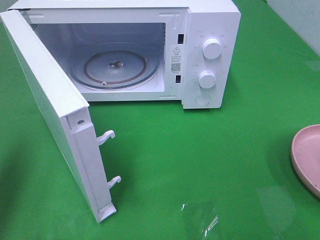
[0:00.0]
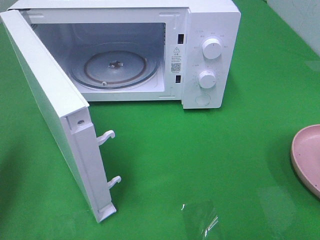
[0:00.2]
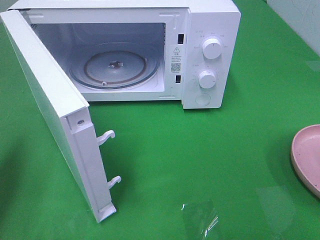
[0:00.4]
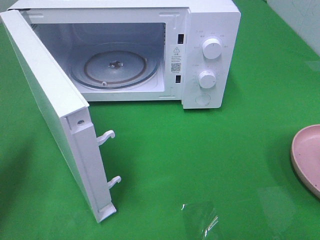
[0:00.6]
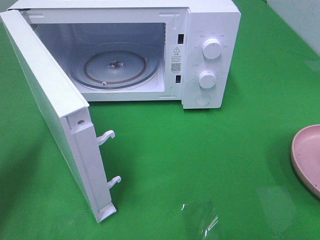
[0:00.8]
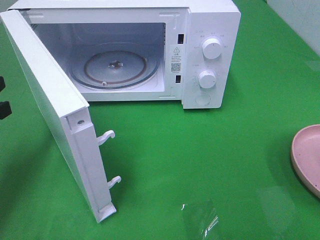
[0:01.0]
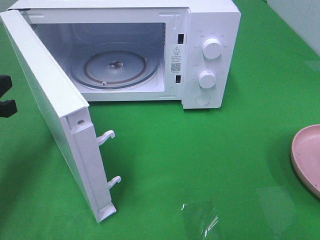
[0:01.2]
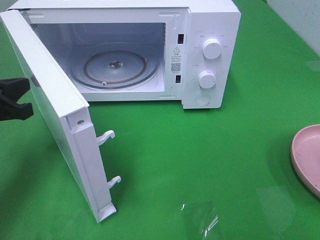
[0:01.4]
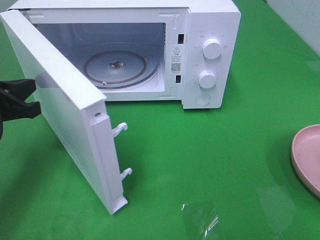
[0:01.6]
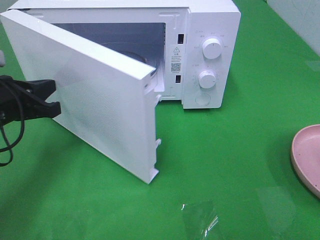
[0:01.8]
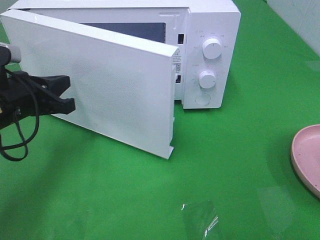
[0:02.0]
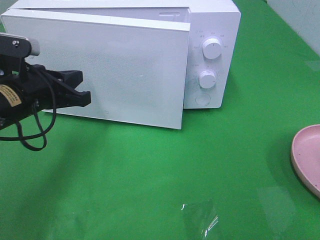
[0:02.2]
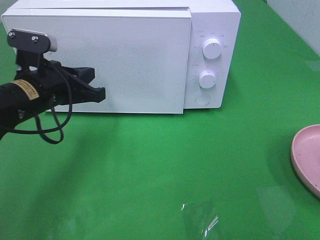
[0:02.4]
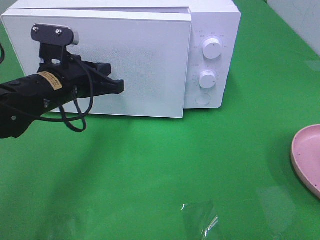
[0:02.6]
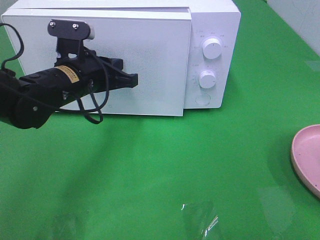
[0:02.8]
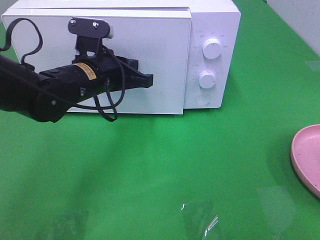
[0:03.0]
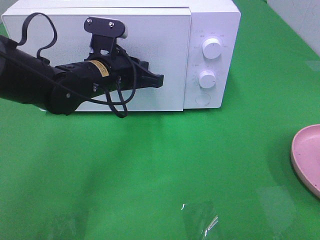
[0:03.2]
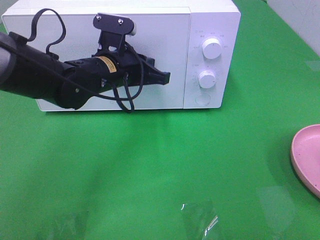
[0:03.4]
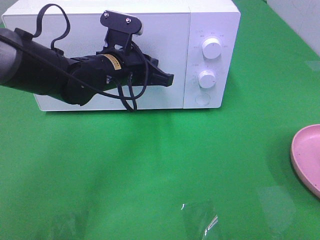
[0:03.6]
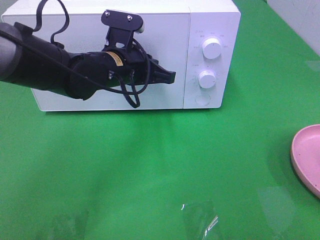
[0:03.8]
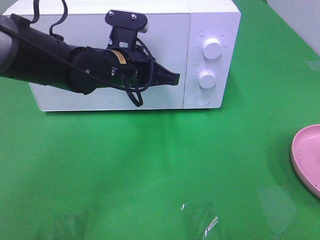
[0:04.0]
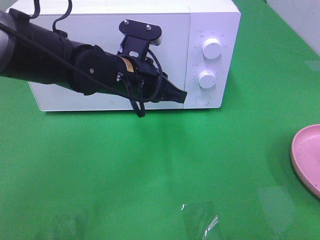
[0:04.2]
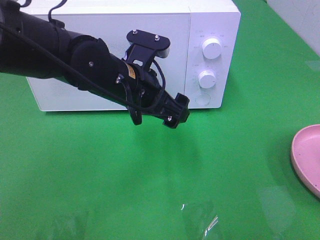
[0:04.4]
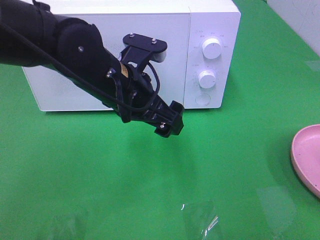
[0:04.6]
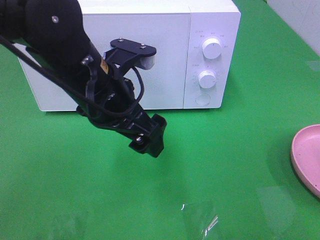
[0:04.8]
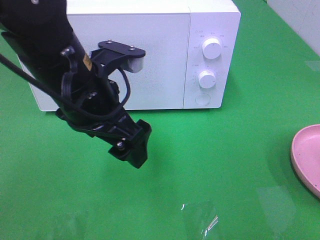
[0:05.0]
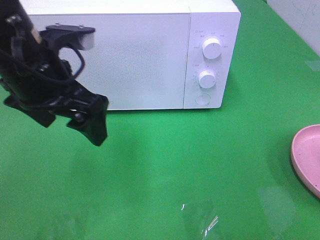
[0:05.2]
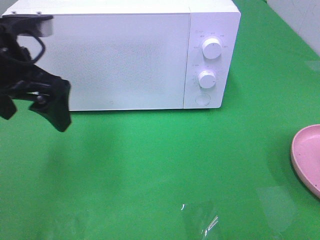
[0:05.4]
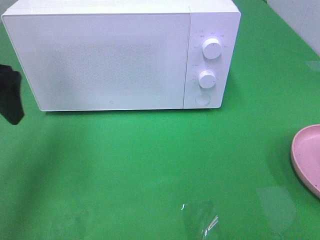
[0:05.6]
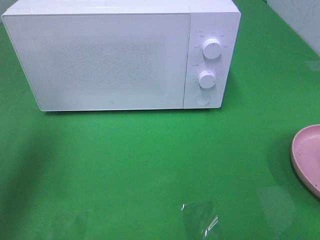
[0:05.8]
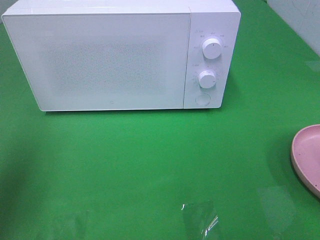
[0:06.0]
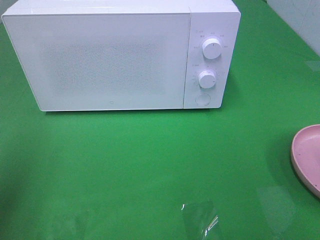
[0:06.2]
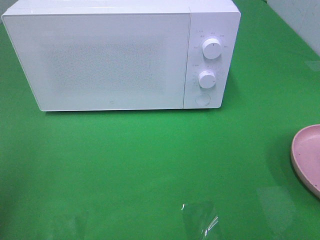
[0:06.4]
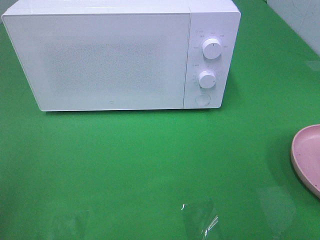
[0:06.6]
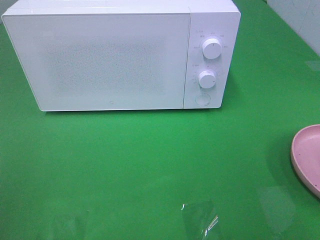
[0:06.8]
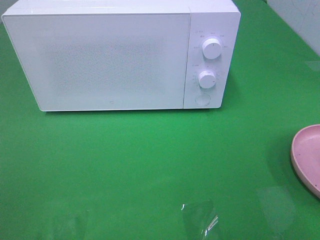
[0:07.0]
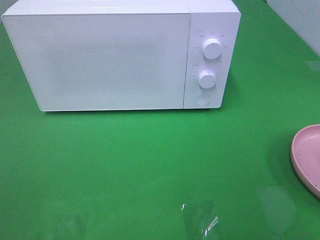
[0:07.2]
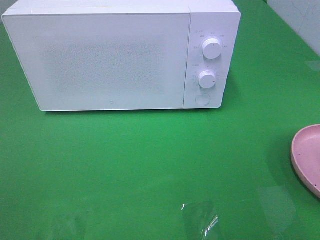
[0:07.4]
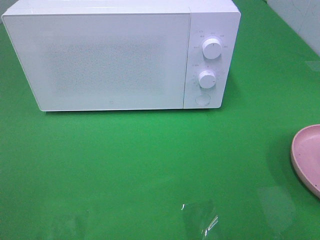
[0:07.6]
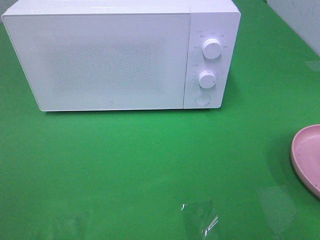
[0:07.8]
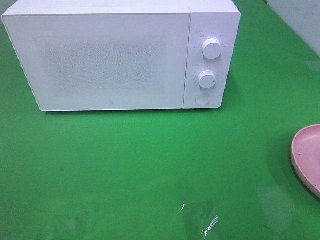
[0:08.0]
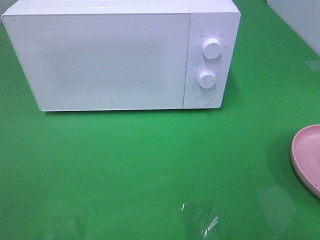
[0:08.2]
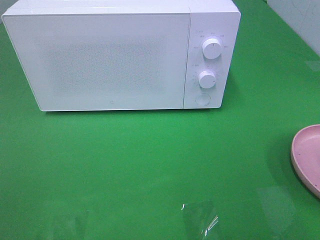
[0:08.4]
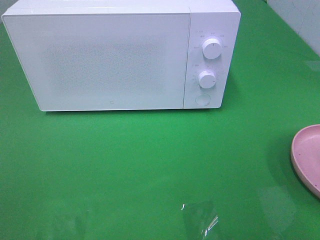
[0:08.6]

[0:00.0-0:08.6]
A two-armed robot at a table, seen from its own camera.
Task of the whole recording: Heat the burger.
Step, 0:00.0 to 0:04.0: Left hand: close the microwave door.
0:00.0 to 0:01.4: The left gripper travels downward and forward by roughly 15 cm.
0:01.4 to 0:02.8: The left gripper shifts some 15 cm to the right and forward.
0:02.8 to 0:04.4: The left gripper goes approximately 10 cm to the right, and opens.
0:04.4 to 0:05.8: The left gripper travels to the left by approximately 25 cm.
0:05.8 to 0:07.2: The left gripper is displaced backward by roughly 25 cm.
0:07.2 to 0:08.6: Both grippers stay about where they are.

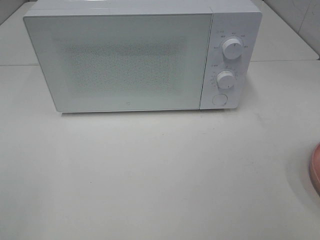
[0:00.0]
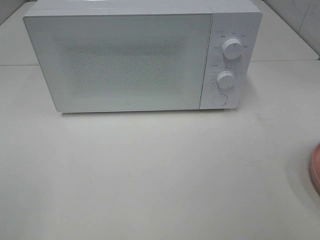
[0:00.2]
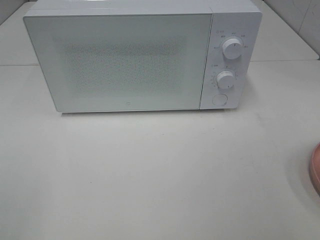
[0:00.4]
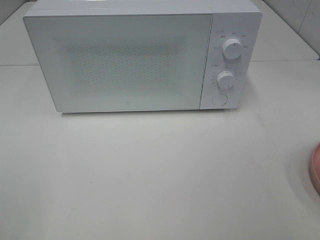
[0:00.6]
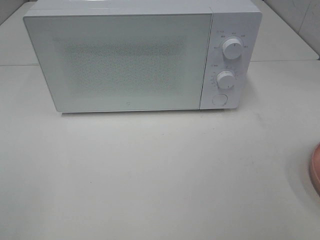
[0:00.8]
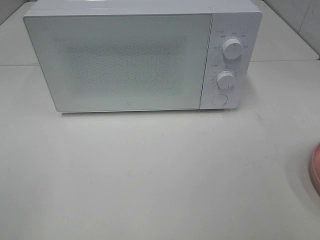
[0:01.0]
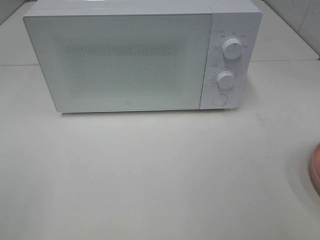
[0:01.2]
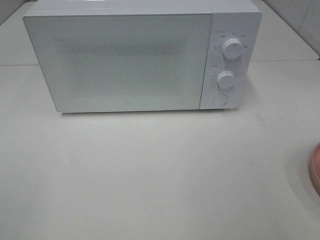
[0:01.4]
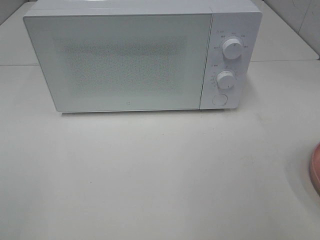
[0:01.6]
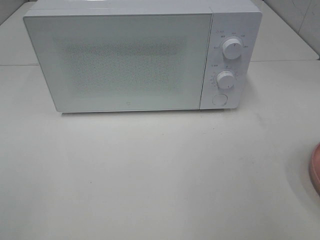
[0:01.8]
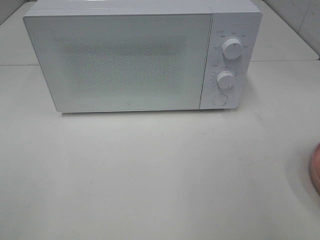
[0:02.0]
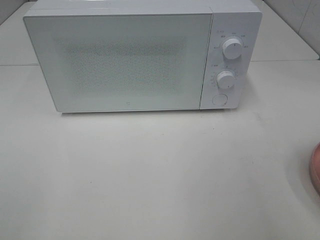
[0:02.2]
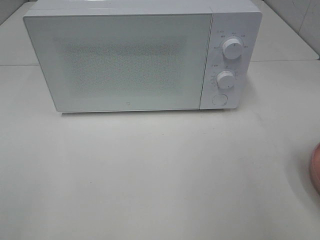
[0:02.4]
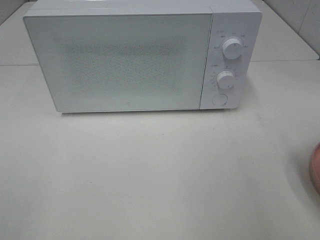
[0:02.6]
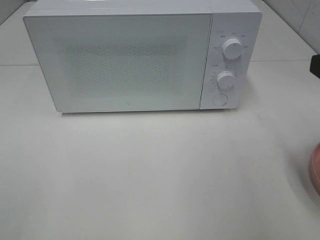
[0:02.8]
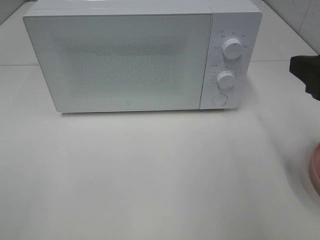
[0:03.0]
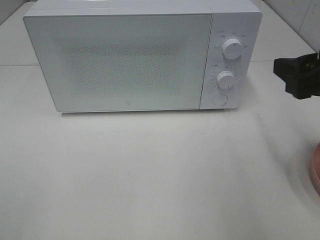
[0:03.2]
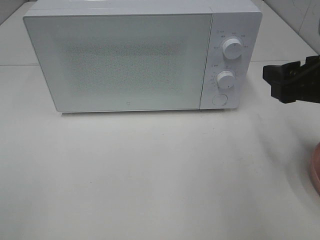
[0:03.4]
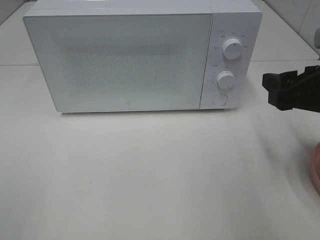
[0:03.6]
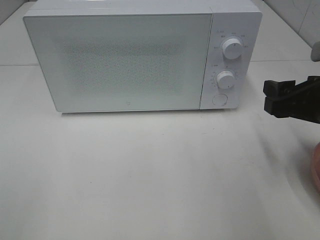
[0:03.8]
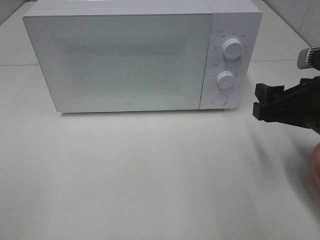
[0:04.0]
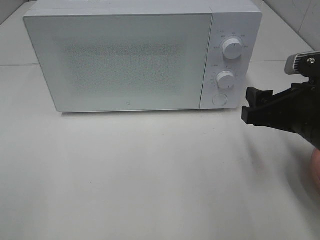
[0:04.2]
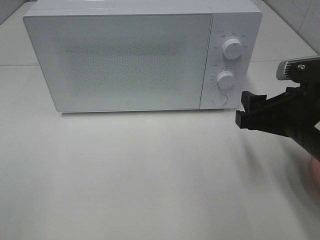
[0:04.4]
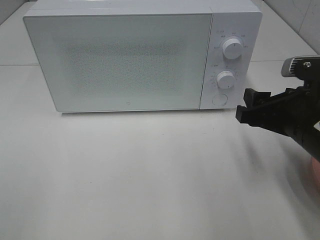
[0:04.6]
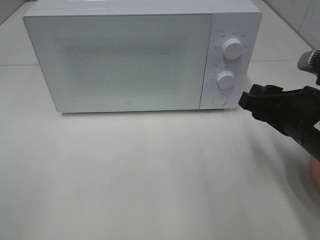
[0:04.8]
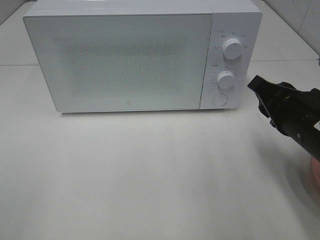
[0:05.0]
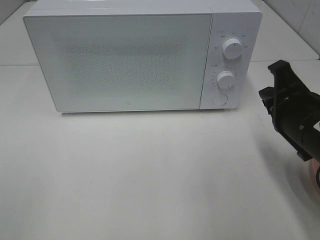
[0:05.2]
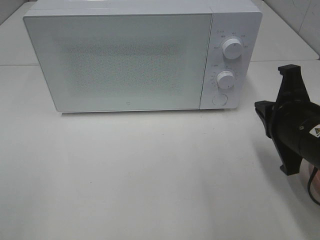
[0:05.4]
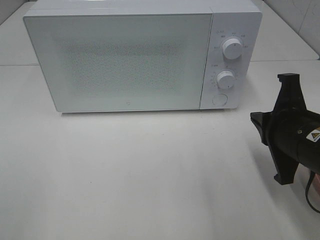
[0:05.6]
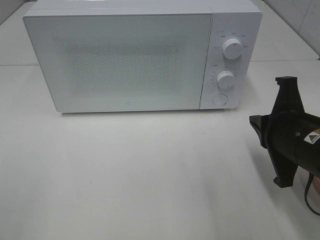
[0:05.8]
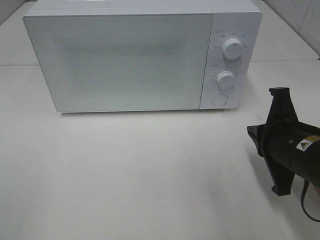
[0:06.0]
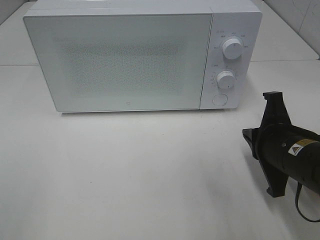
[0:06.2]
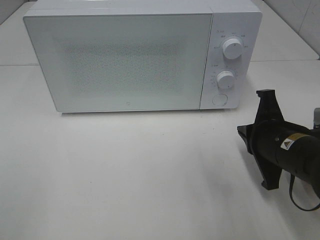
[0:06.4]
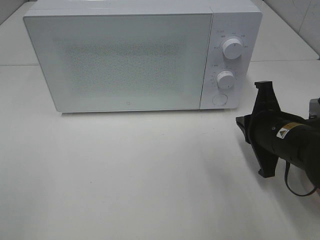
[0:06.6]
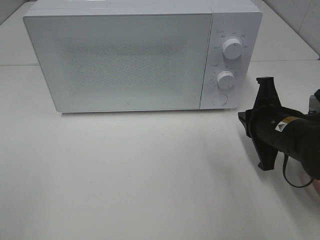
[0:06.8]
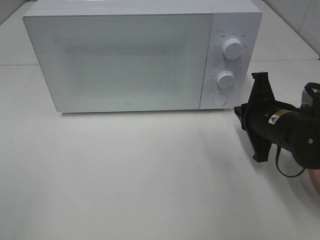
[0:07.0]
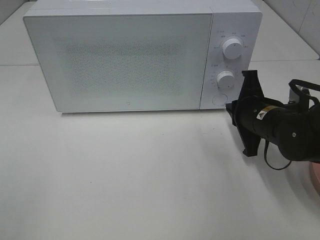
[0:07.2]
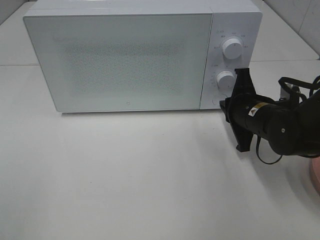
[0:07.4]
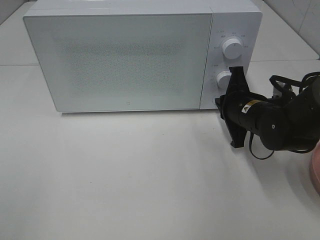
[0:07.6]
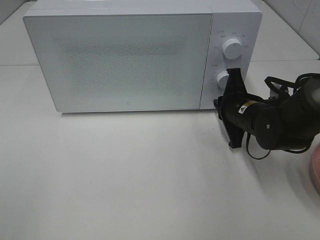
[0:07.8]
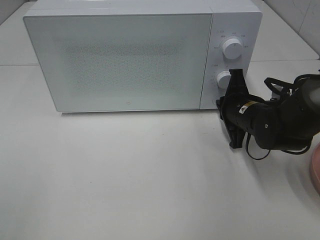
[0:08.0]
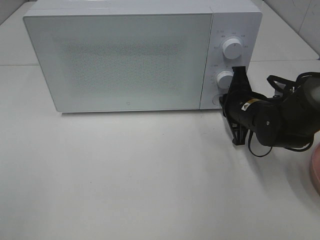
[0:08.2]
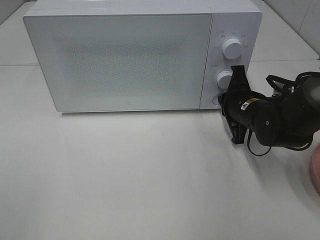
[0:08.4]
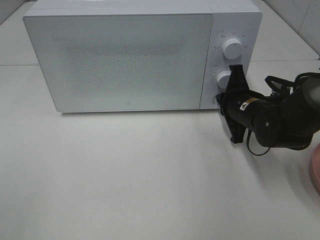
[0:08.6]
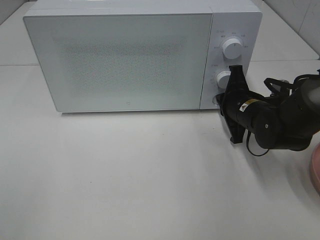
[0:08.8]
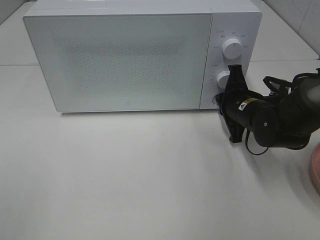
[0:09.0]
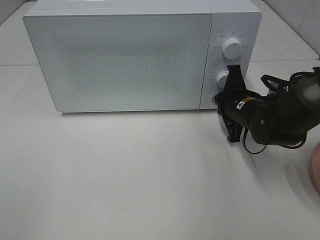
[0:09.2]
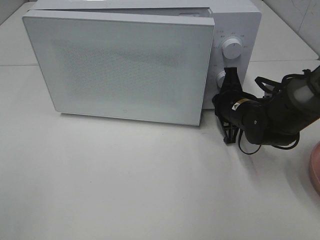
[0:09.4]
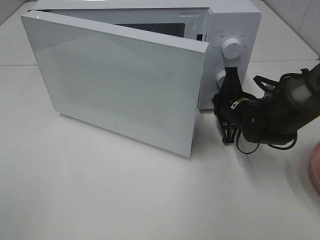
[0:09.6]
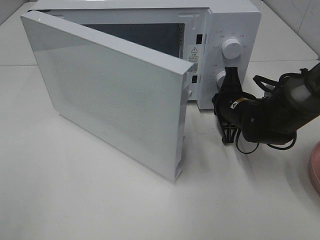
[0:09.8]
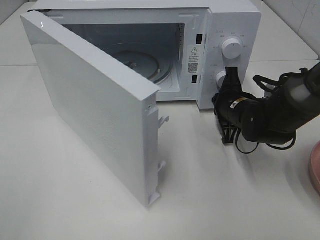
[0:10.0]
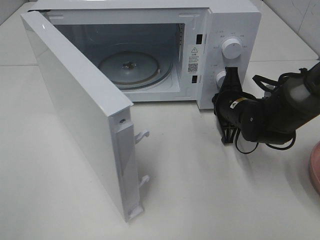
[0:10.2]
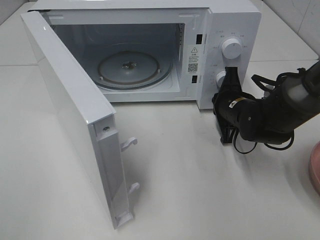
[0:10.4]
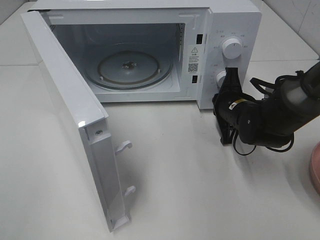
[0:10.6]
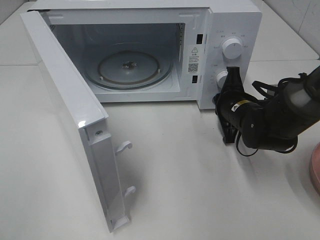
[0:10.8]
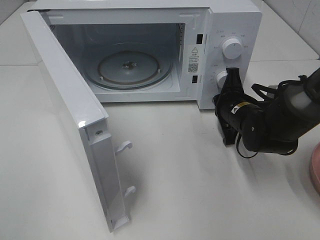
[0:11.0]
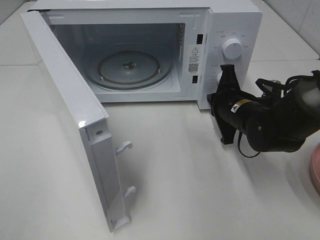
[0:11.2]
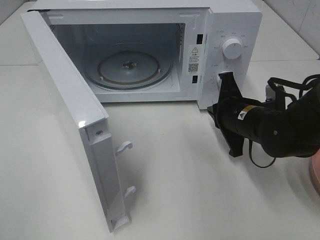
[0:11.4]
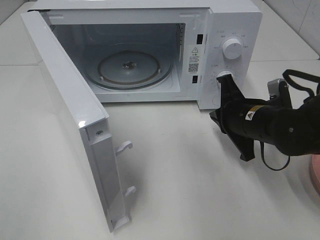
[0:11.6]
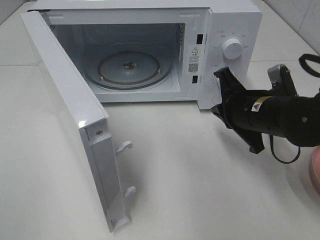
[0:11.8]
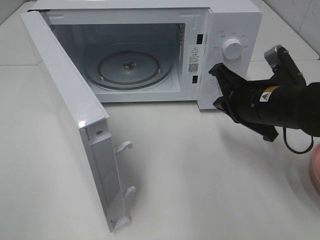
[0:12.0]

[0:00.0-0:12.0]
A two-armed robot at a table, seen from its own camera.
Task of the whole recording: Heat the burger.
Step, 0:00.0 to 0:11.2: Right hand: press the switch.
0:01.6 to 0:03.0: The right gripper shifts some 15 cm forward.
0:03.0 to 0:04.4: The right gripper is displaced downward by about 10 cm.
0:04.4 to 0:06.0: The right gripper closes its fingers.
0:06.0 to 0:07.6: The right gripper heads forward, covering about 15 cm.
0:07.6 to 0:09.0: The grippers move only a little.
0:10.4 to 0:12.0: The right gripper is displaced backward and upward by roughly 10 cm.

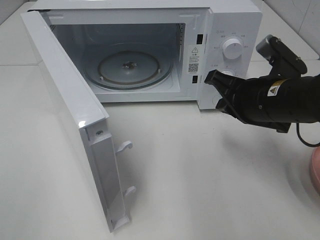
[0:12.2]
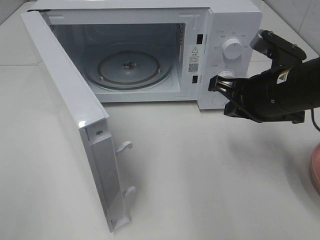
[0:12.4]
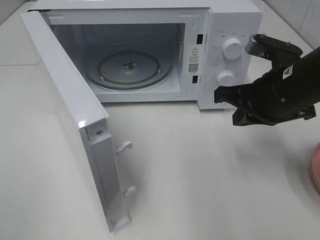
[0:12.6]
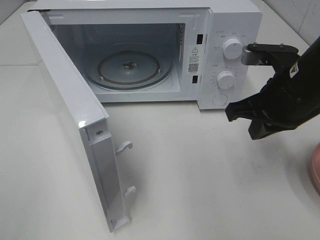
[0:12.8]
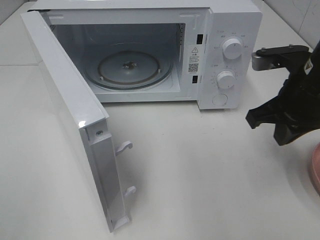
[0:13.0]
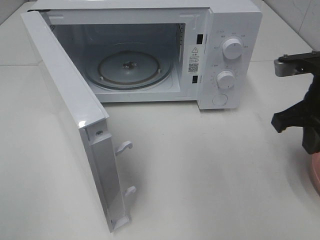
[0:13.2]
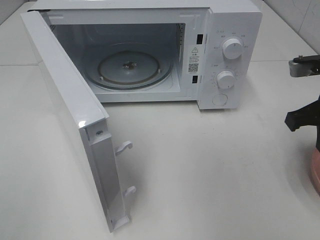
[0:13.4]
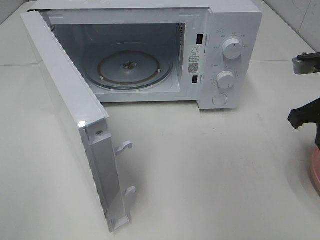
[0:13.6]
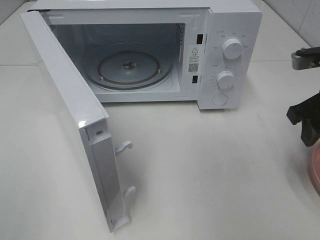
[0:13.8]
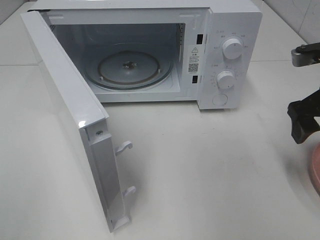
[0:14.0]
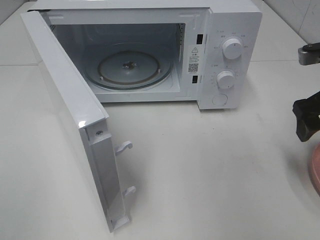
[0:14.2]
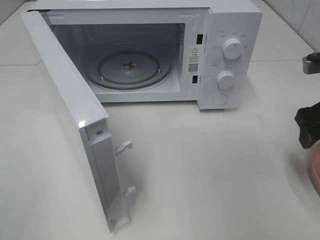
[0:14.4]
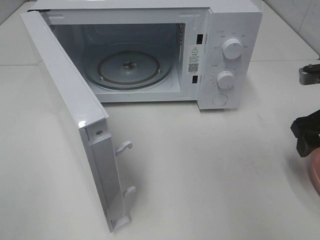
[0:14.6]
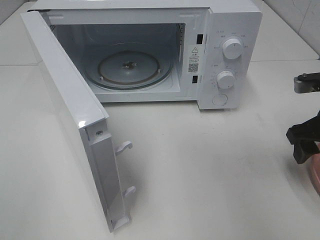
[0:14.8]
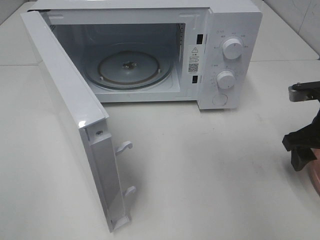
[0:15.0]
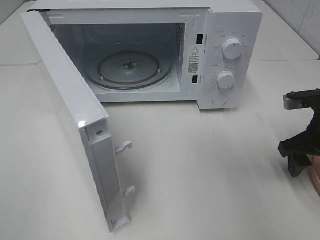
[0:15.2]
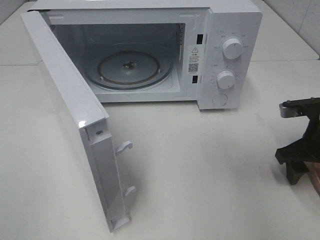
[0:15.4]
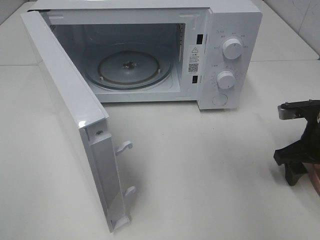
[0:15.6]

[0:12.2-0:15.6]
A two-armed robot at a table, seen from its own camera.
Task of the whole recording: Heat the burger.
0:12.2 to 0:13.8: The right gripper moves to the right, roughly 10 cm, and opens up.
0:13.8 to 0:15.6: The right gripper shifts some 10 cm downward.
